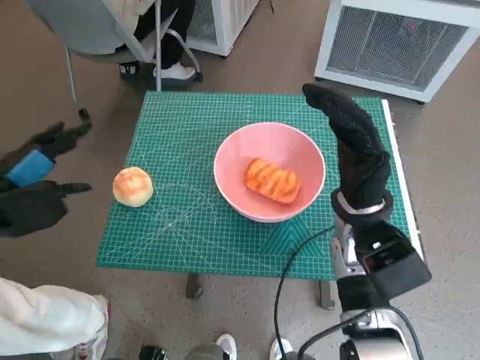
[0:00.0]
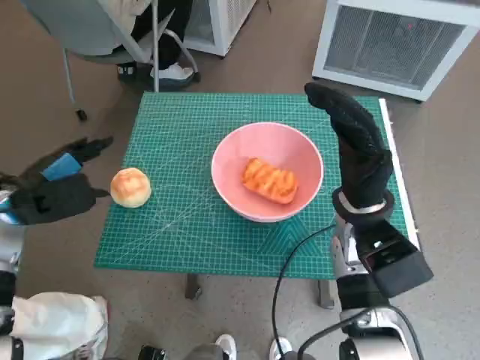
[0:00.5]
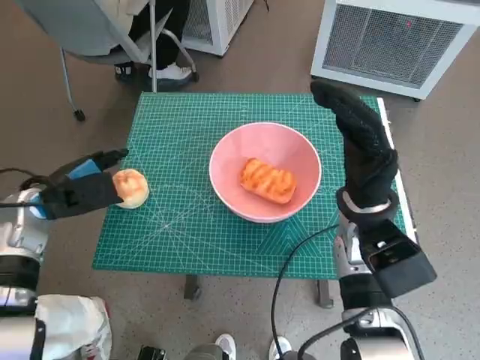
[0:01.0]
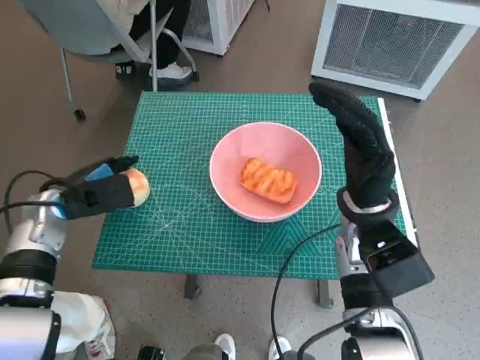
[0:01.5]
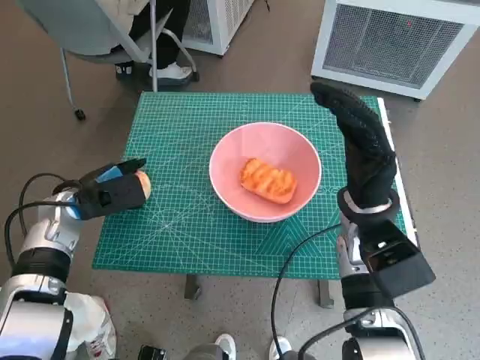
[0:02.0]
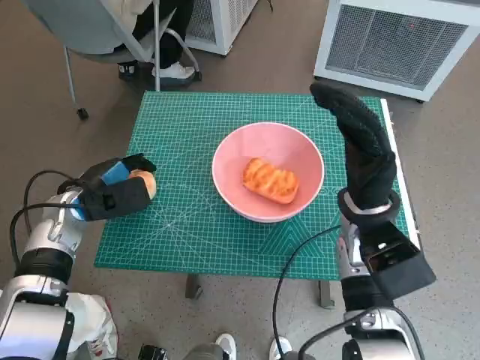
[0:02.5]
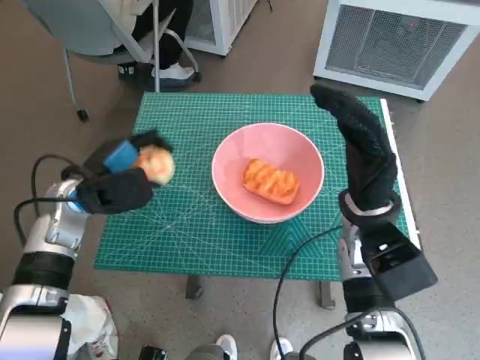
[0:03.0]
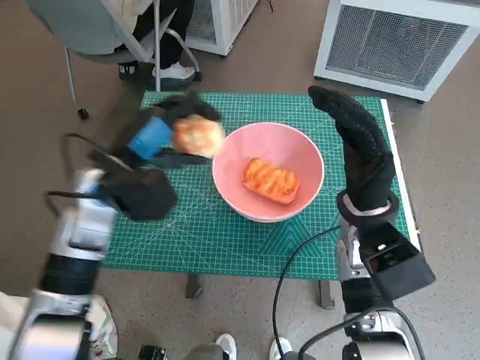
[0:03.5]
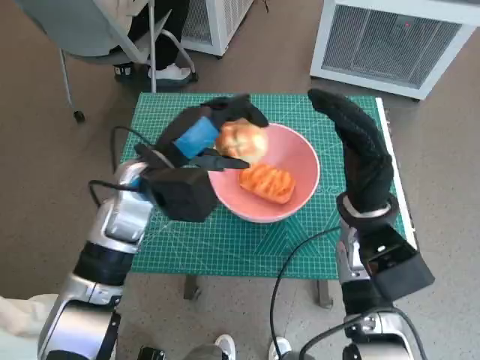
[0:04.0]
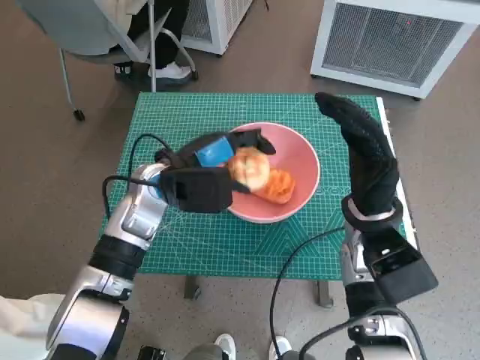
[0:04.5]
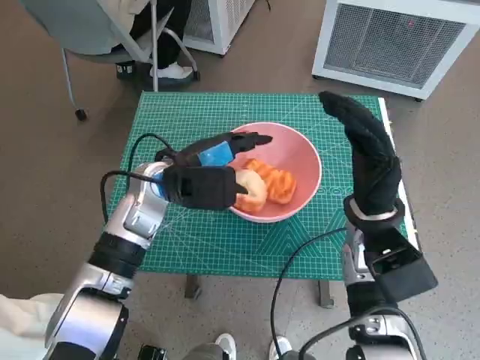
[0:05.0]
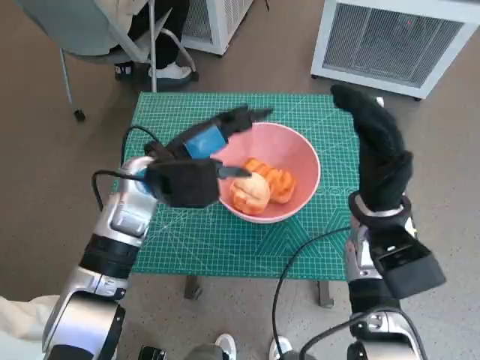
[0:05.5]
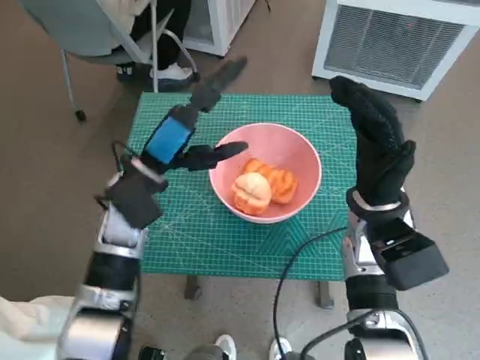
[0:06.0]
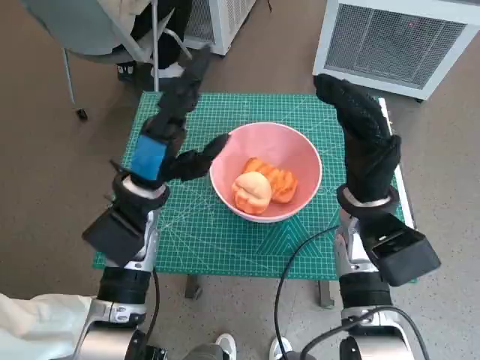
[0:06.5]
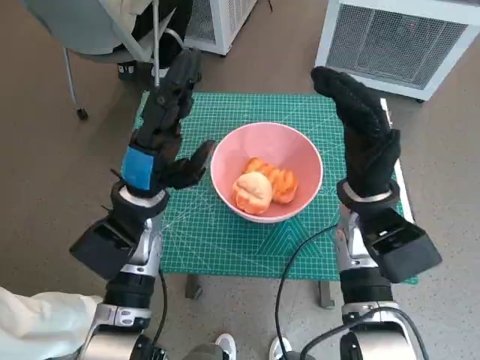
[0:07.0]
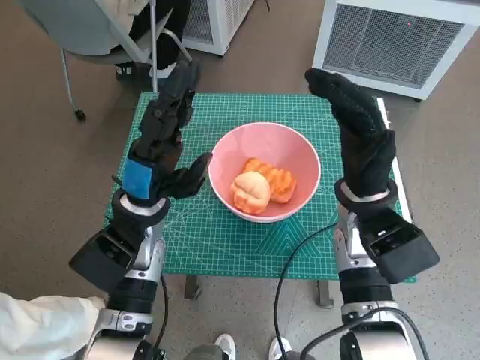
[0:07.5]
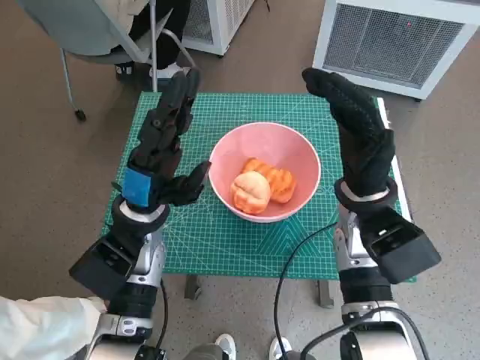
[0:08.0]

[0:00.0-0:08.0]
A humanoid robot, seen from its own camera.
Task of the whole recording: Push the bowl to the center of the table and put the bread into the bowl.
Step, 0:00.0 to 0:02.0: Grasp the round bread with left hand.
Step, 0:02.5 to 0:05.5: Place the round bread in pink bowl with left hand.
0:00.0 to 0:02.0: The left hand heads downward, forward and to the right, covering about 10 cm.
0:02.0 to 0:04.0: The left hand is displaced to the right and upward by roughly 15 cm.
0:06.0 to 0:08.0: The left hand changes place by about 5 cm.
